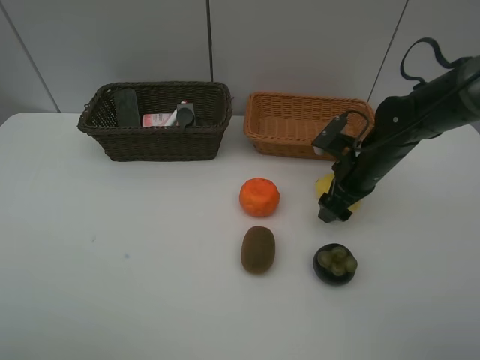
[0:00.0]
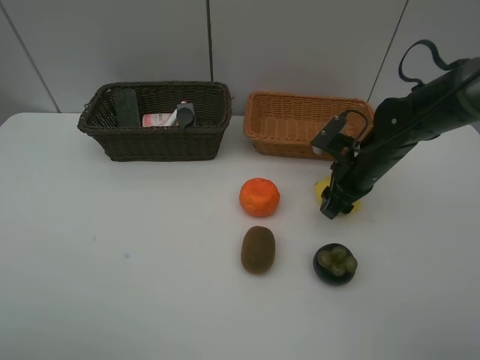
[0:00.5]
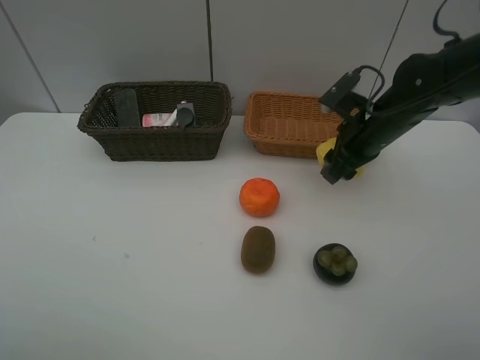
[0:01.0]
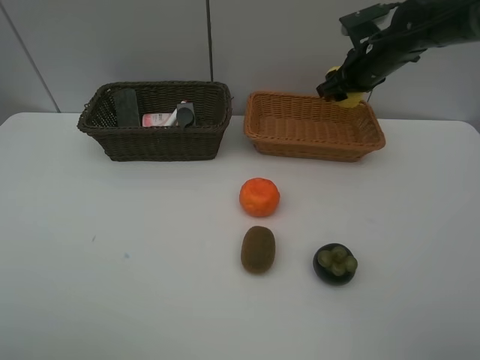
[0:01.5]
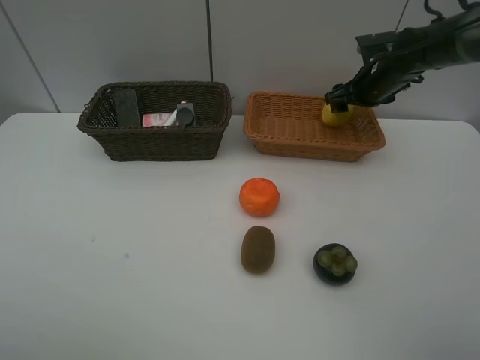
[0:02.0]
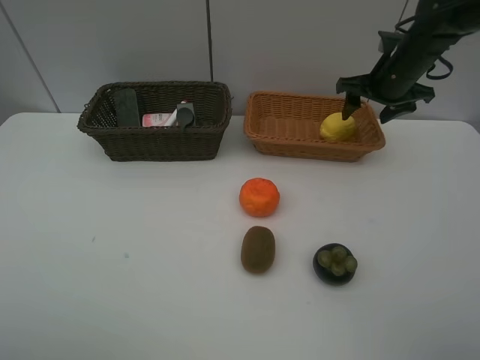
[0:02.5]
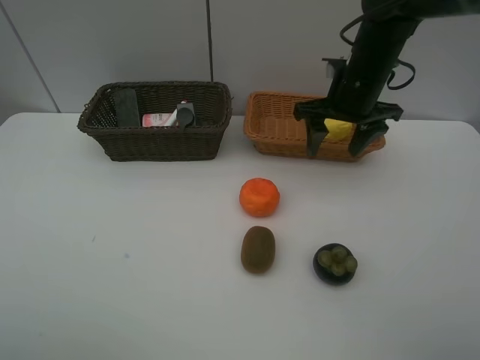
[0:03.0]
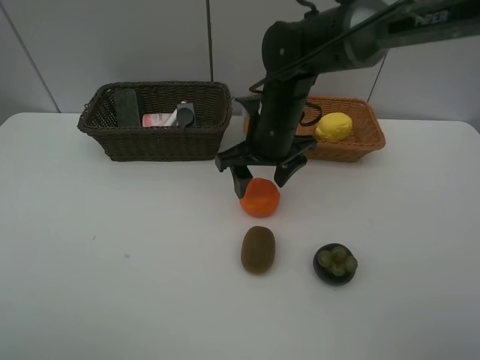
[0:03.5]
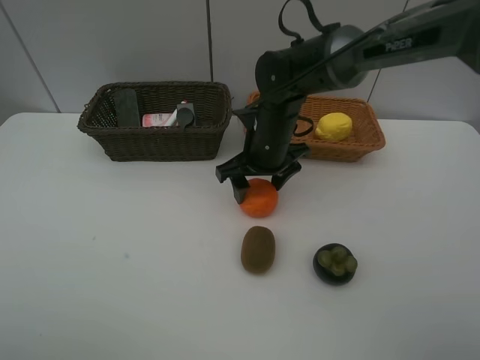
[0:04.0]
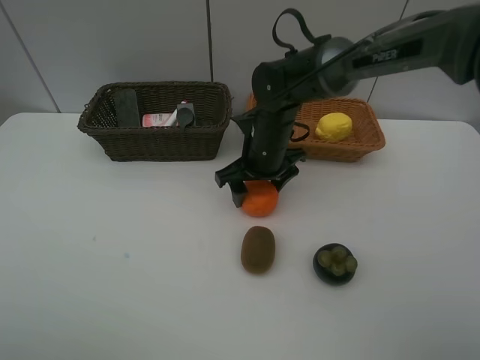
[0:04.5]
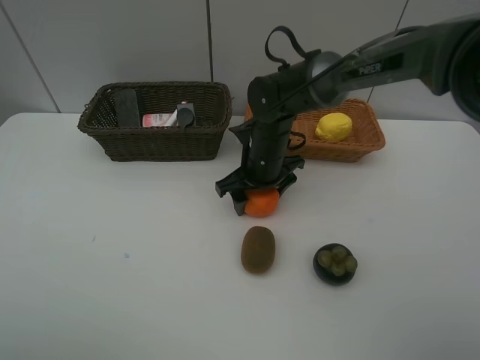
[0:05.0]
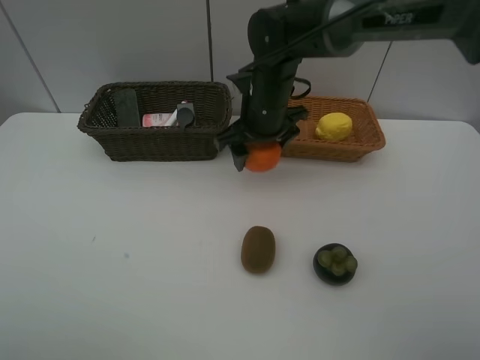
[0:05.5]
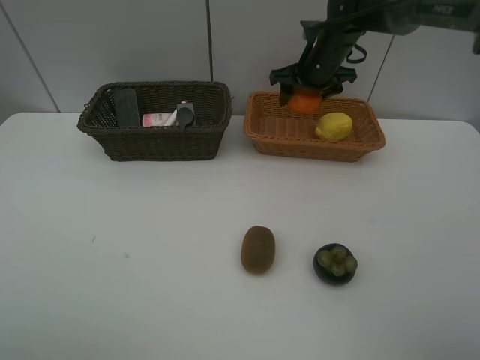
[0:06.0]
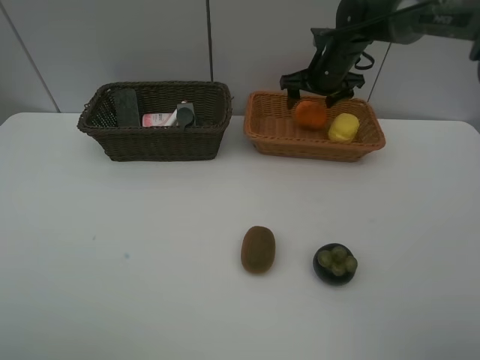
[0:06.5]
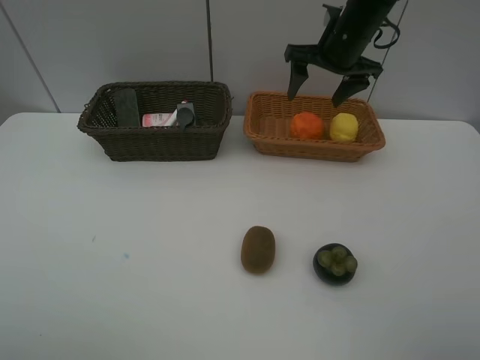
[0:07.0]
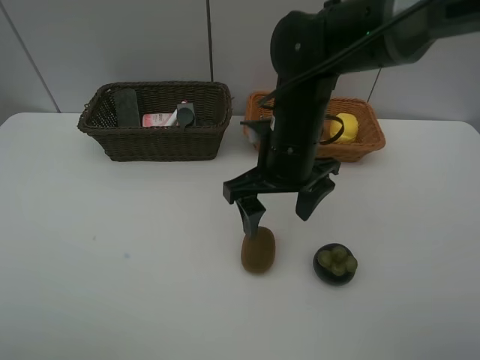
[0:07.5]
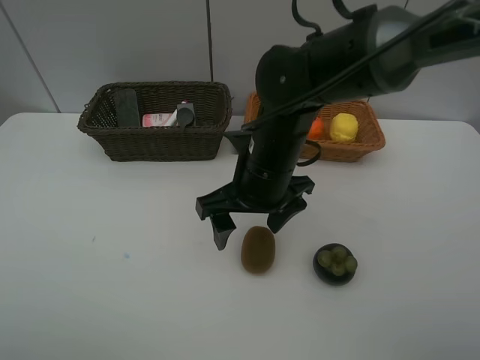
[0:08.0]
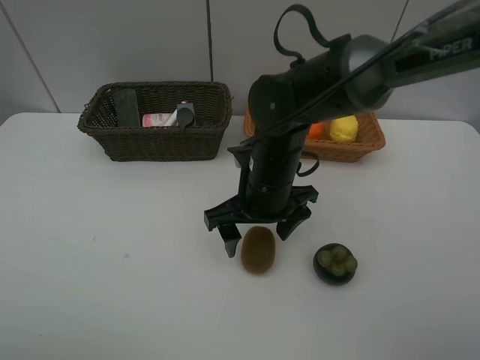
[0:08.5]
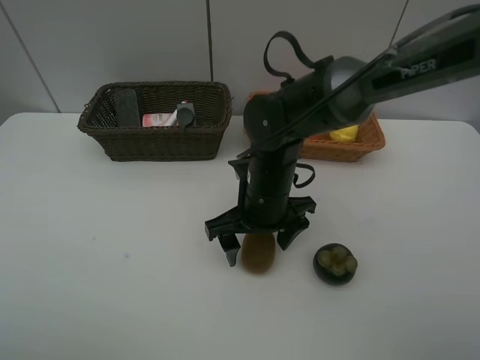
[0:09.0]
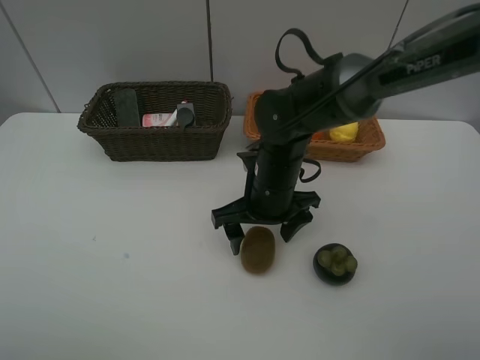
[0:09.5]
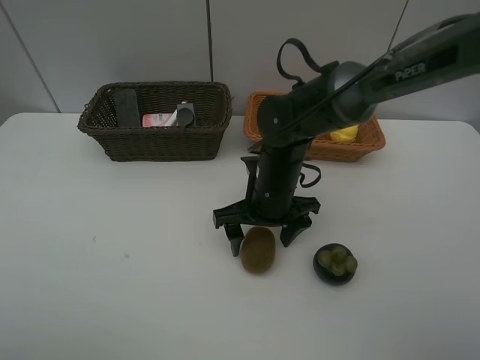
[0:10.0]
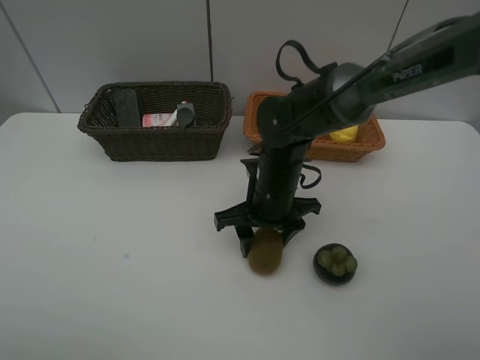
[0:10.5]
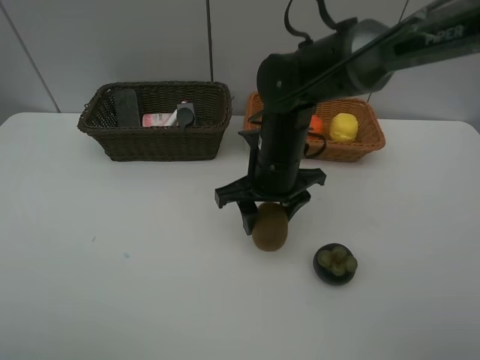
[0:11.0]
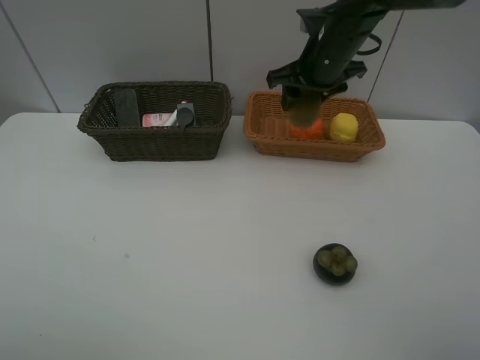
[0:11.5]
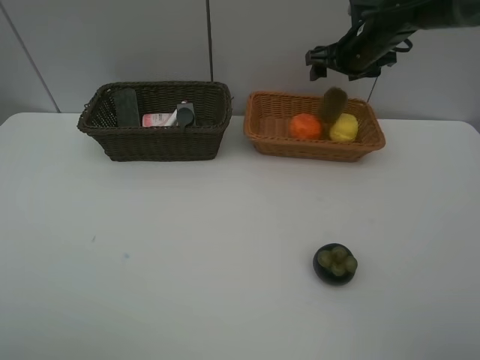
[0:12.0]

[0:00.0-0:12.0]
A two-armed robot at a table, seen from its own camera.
Task of the whole recording: Place multiple objects separately in different baskets.
Step, 0:01.0 to 0:02.0: Place the lemon in the light basket with right gripper.
Step, 0:02.5 to 0:05.0: Pick up the orange with right gripper.
Step, 0:05.5 to 0:06.5: Place the orange in the light basket with right gripper.
Step, 0:07.0 to 0:11.0: Pick up kiwi with right gripper.
0:00.0 to 0:02.0: The right gripper is displaced forward and upward by approximately 15 cm, and closes.
0:02.0 to 0:04.0: The right gripper is displaced to the left and backward by approximately 25 cm.
0:04.0 to 0:06.0: The right gripper heads forward, to the right and upward, covering approximately 20 cm.
0:06.0 to 0:08.0: The right gripper travels backward and to the left by some 25 cm, and opens its fingers.
0:08.0 to 0:10.0: The right gripper is displaced downward by some 5 cm.
0:10.0 to 0:12.0: The right gripper goes about 25 cm forward, to the right and upward, and closes, then opens again.

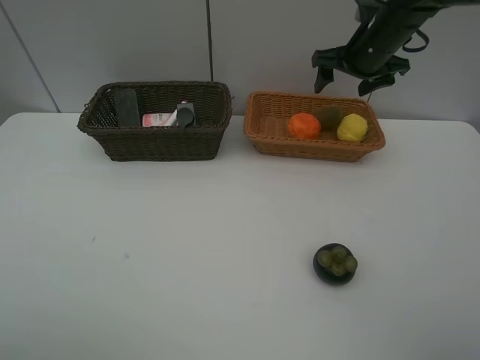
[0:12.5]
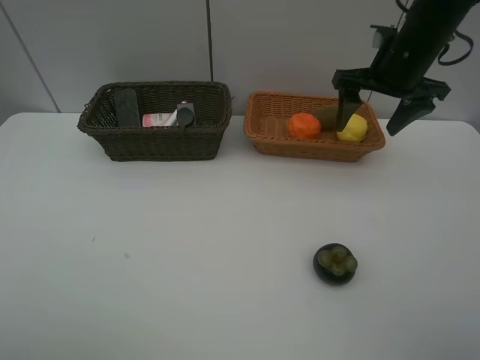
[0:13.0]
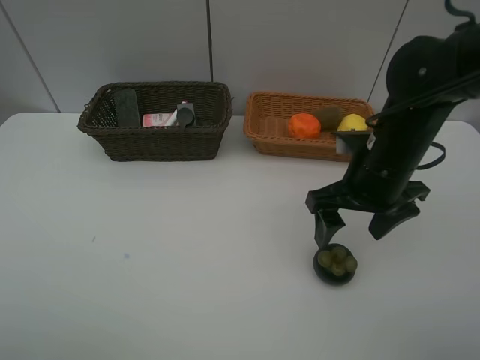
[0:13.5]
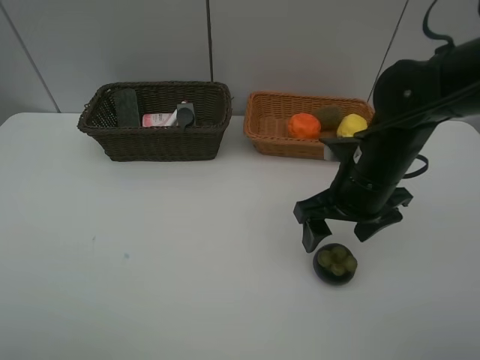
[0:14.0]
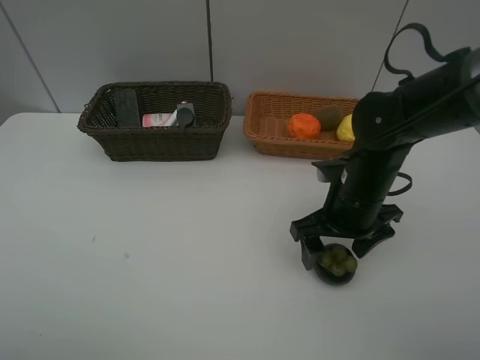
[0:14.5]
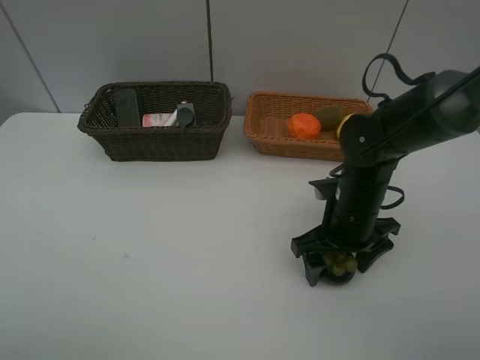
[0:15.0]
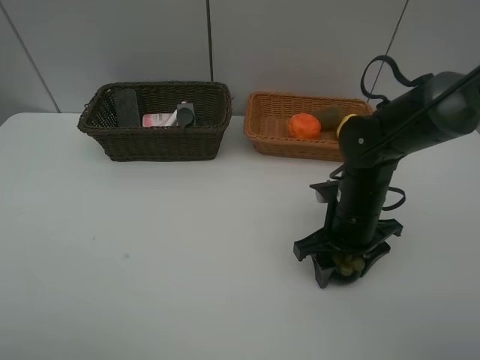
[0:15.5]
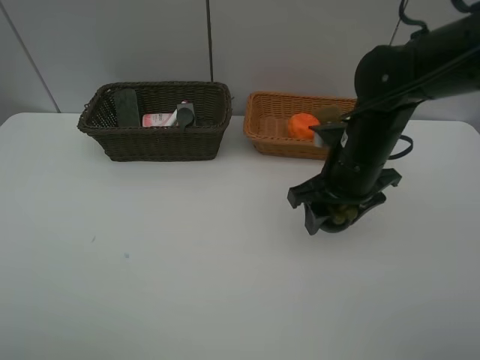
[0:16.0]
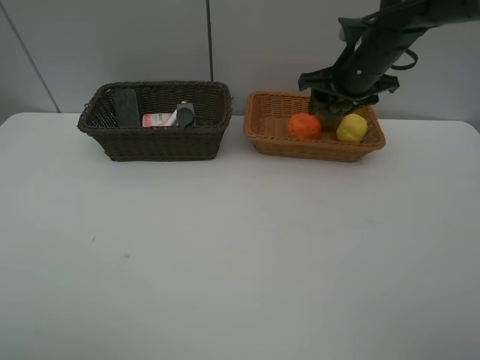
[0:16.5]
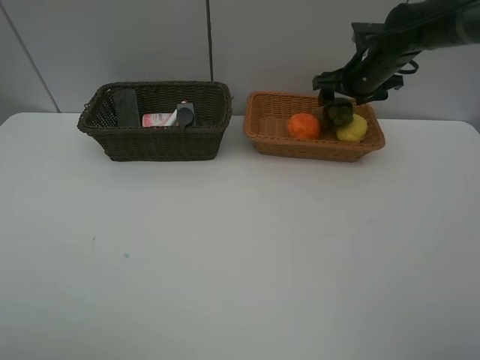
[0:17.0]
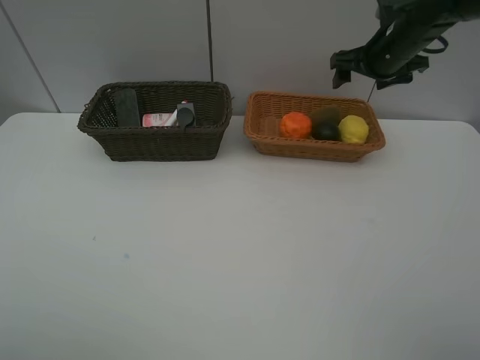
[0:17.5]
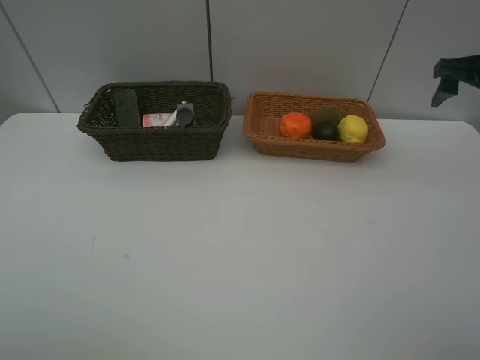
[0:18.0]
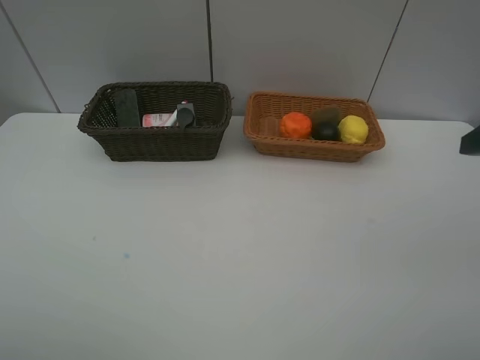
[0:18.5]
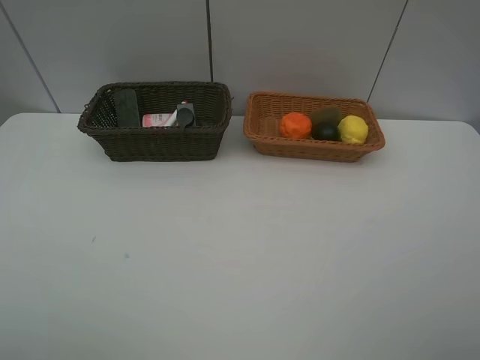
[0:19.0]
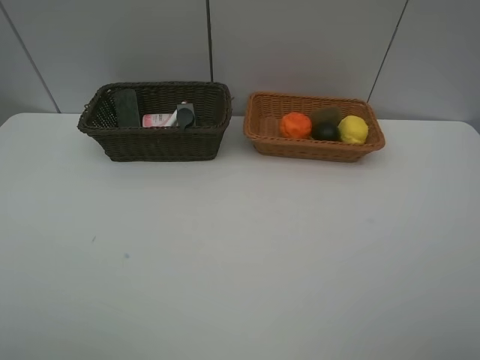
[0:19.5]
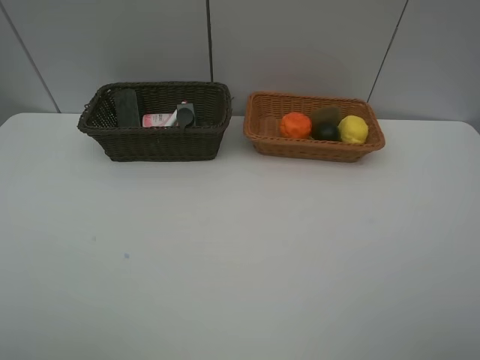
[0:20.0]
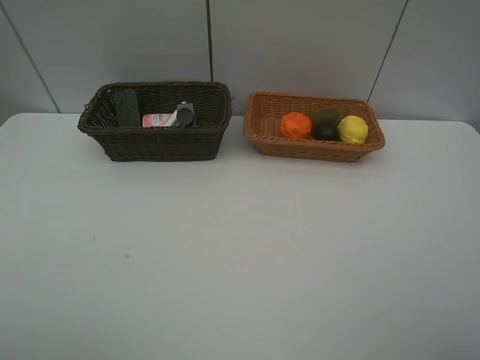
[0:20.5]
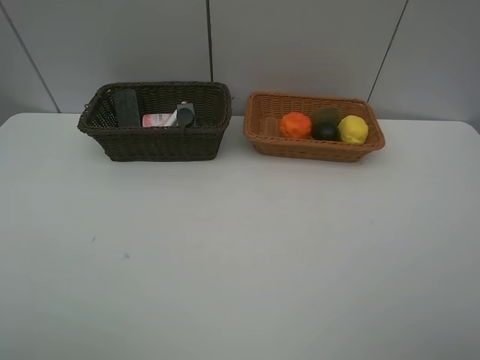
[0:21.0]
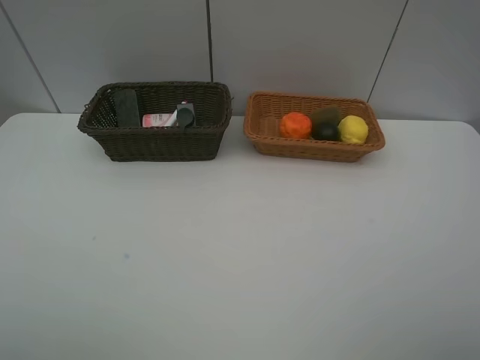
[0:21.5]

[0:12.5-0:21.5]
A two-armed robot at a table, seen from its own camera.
Task of the whole recording: Place multiple objects separately in different baskets.
Step, 0:13.0 to 0:15.5: Pick up the mangosteen with right gripper.
Step, 0:16.0 to 0:17.0: Place the mangosteen in the light basket with right gripper.
0:12.5 to 0:14.5: The right gripper goes some 25 cm backward and downward.
0:14.5 to 0:17.0: The right gripper is displaced forward by approximately 20 cm, and closes and opens again.
0:17.0 to 0:19.5: The right gripper shifts approximately 50 cm backward.
0:19.5 to 0:21.5: The two grippers keep their place.
